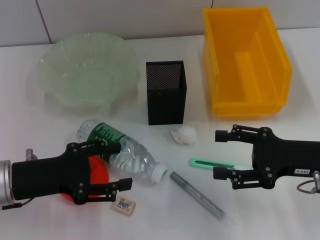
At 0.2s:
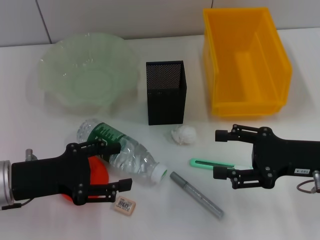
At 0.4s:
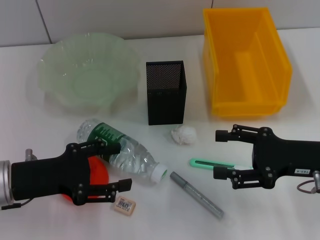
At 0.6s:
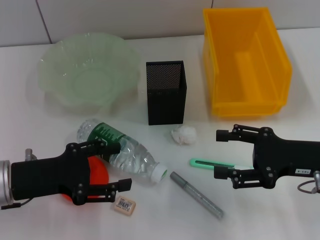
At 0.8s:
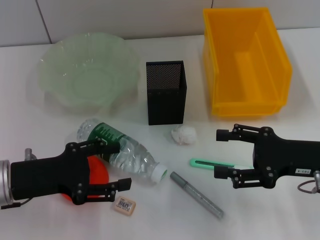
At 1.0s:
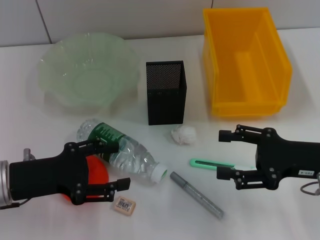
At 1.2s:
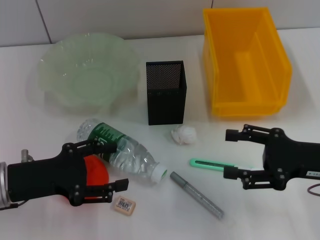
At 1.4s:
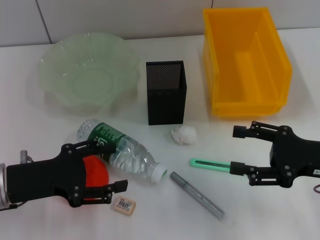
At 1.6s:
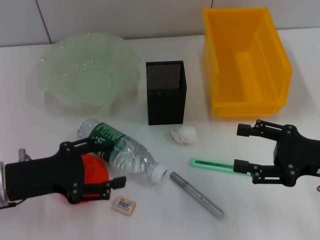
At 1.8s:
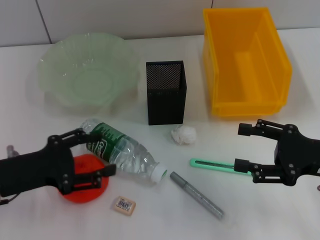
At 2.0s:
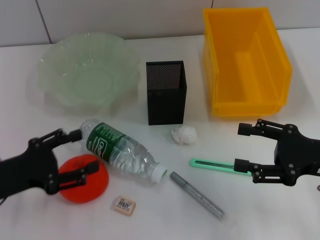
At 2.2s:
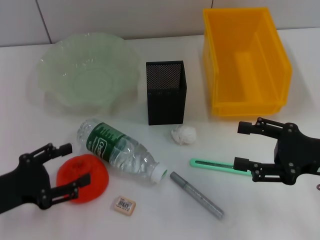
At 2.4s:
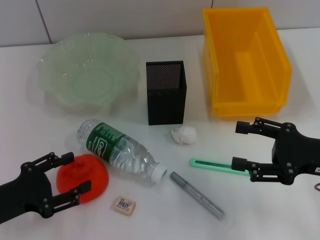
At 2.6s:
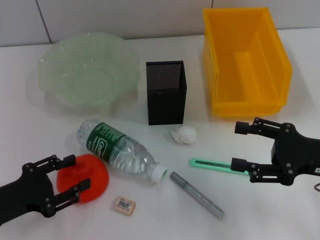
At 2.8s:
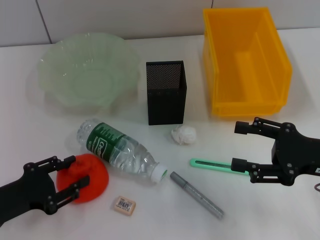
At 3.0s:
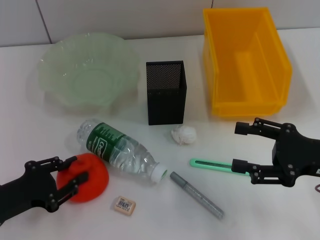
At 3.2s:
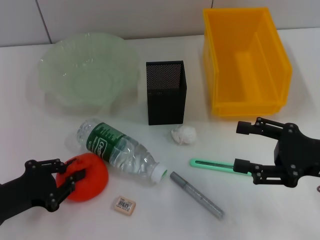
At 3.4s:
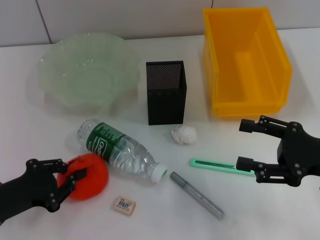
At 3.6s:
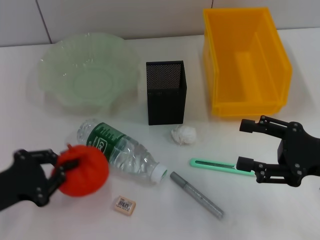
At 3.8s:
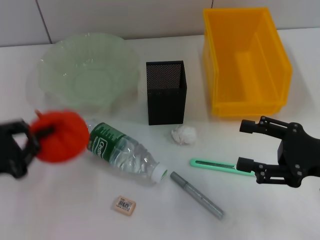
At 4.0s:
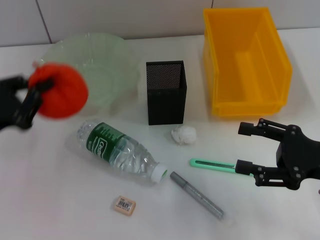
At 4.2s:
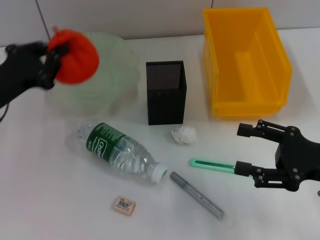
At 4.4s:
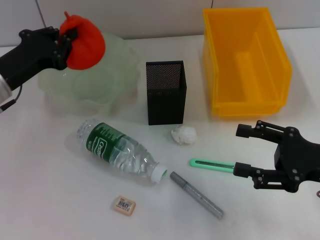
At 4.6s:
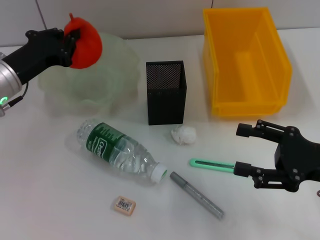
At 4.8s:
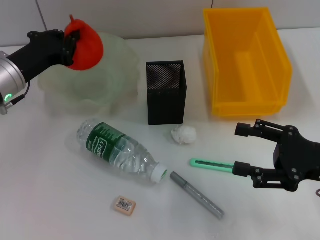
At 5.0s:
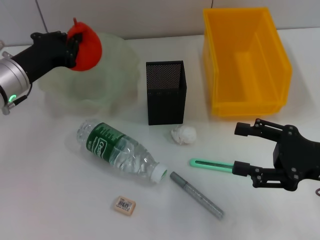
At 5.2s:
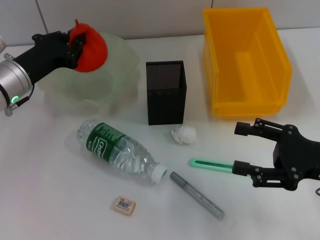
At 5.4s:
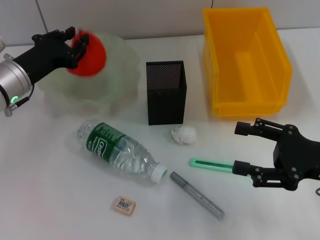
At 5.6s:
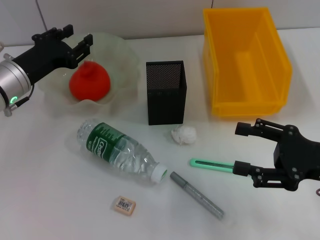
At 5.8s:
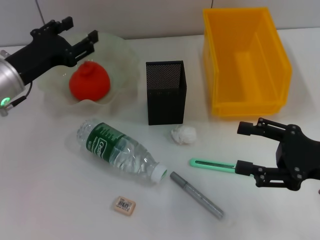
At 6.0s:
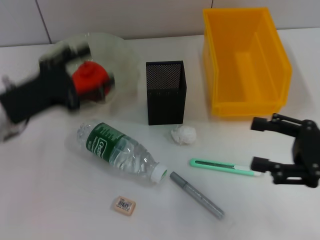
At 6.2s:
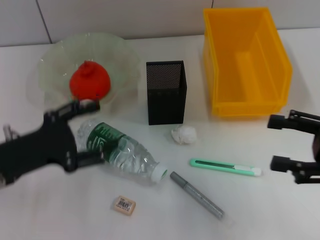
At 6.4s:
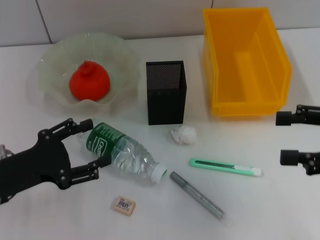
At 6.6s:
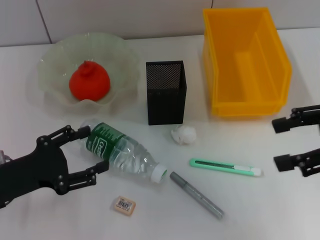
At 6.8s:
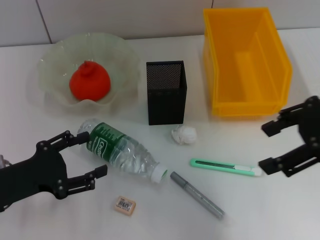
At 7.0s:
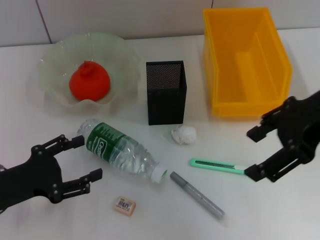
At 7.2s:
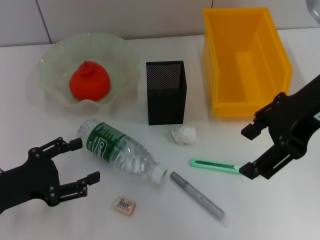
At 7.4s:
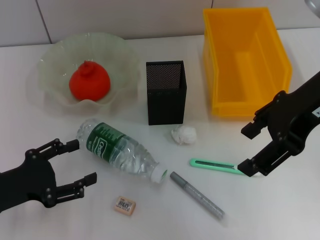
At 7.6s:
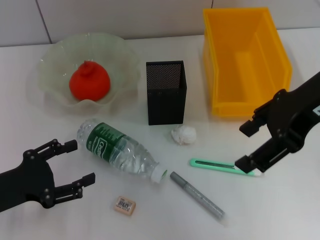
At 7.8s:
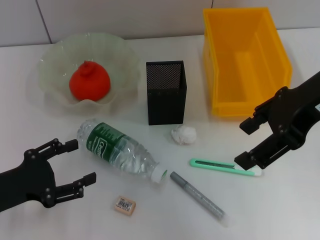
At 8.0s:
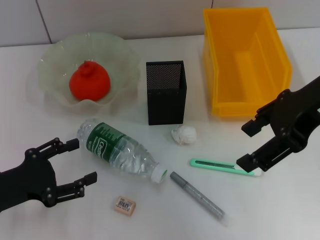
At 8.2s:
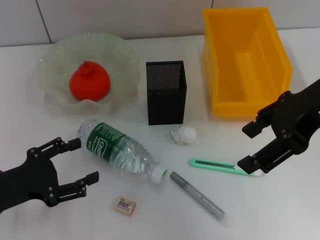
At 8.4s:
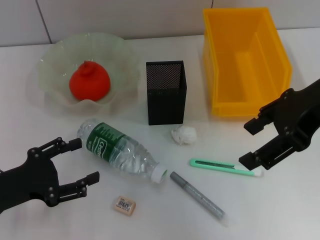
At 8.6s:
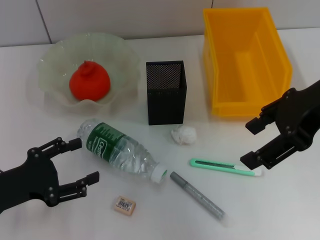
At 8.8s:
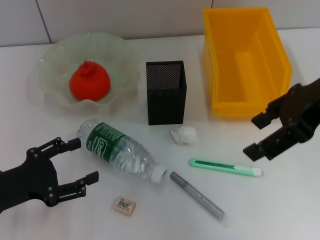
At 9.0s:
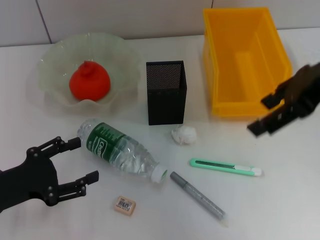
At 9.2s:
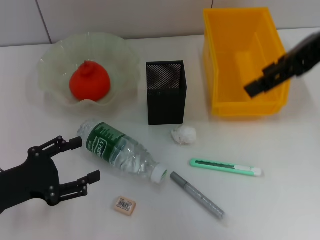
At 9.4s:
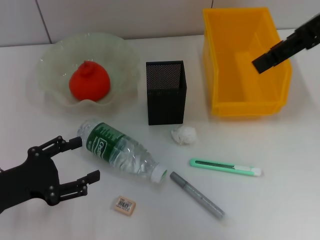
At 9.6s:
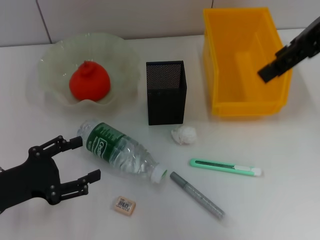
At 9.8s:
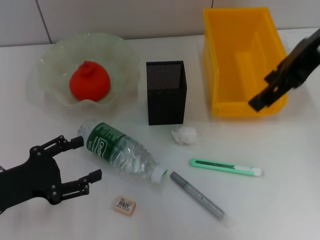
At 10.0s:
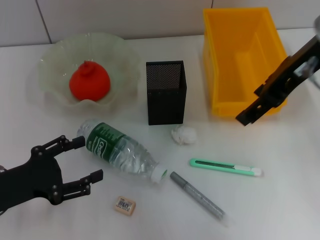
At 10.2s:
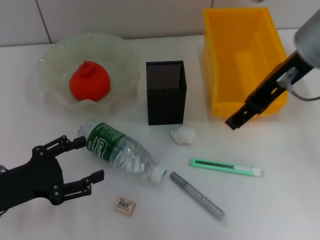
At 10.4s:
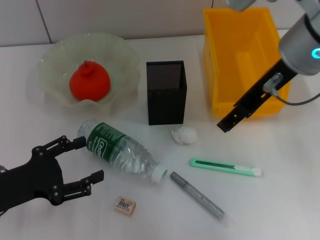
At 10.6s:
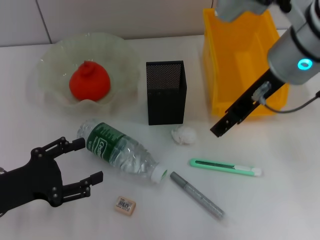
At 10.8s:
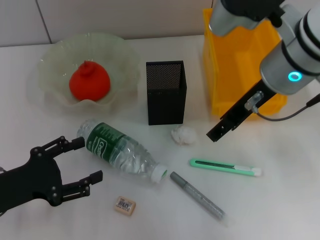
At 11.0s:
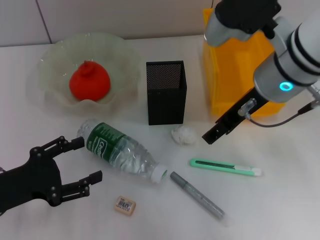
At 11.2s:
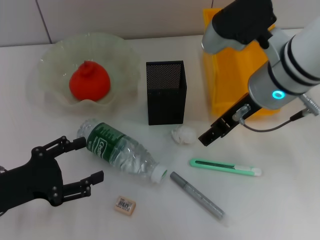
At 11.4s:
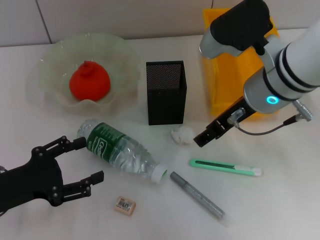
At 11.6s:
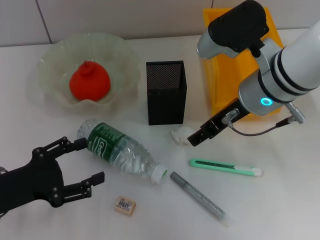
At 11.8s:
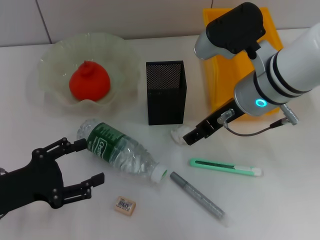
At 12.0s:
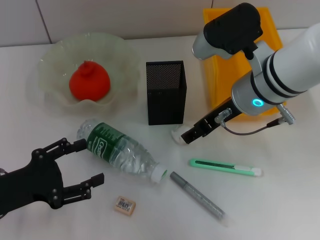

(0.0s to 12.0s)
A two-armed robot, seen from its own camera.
Step, 0.0s - 3.2s: Grab the orange with the left hand.
0.0s - 1.6s: The grippers move only a little.
1.6s - 3.0s: The left gripper ends up roughly 5 cm from where it was, and closes up.
3.0s - 4.4s: The left gripper is displaced forward and upward by roughly 15 cm, and closes.
4.4s - 6.0s: The left gripper opens.
6.0s - 7.6s: The left gripper shifts some 10 cm backward; the right gripper moves upward and to the left, some 20 cm.
7.6s - 9.0s: The grippers move only a little.
9.0s - 10.4s: The right gripper is displaced to the left by some 5 cm.
10.4s - 12.0s: The right gripper shifts approximately 10 cm downward.

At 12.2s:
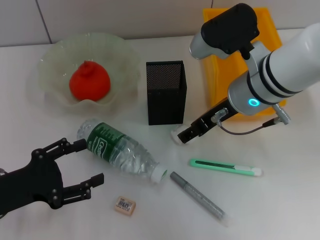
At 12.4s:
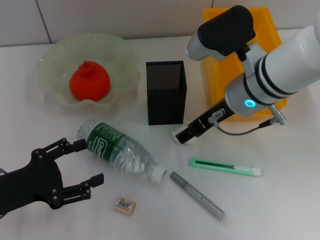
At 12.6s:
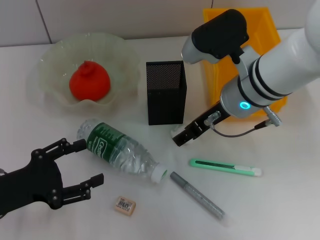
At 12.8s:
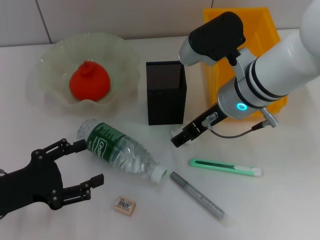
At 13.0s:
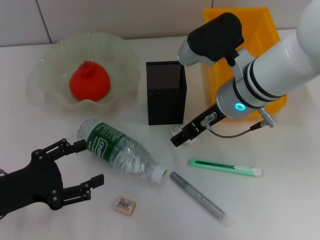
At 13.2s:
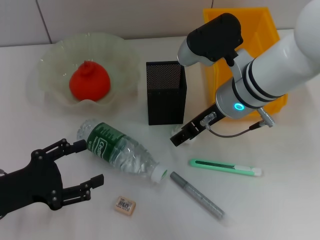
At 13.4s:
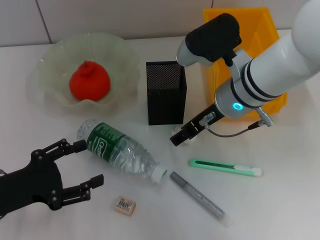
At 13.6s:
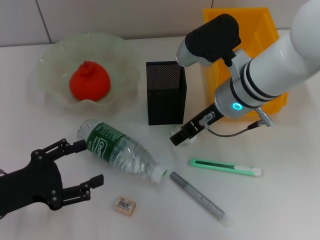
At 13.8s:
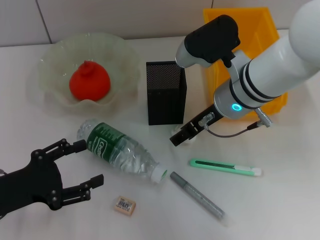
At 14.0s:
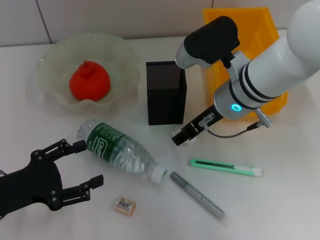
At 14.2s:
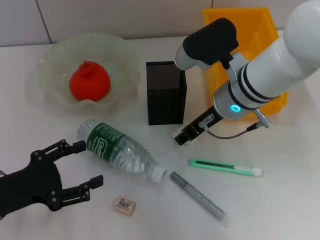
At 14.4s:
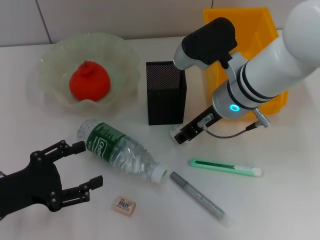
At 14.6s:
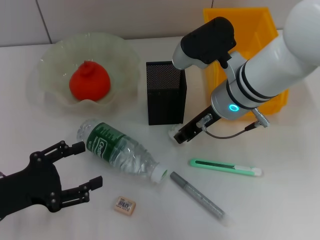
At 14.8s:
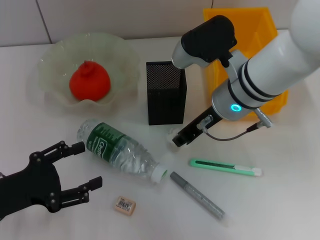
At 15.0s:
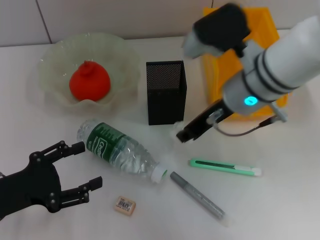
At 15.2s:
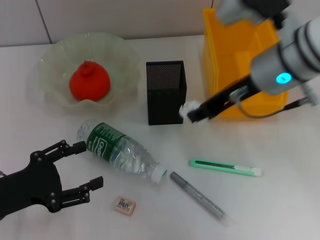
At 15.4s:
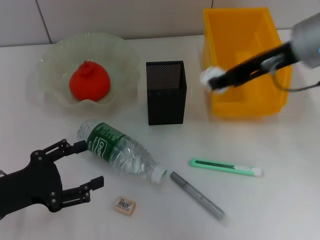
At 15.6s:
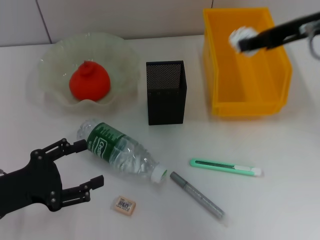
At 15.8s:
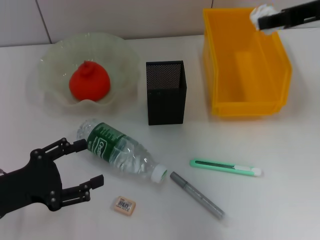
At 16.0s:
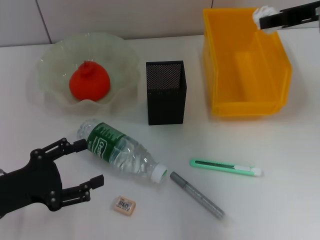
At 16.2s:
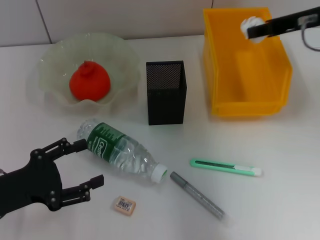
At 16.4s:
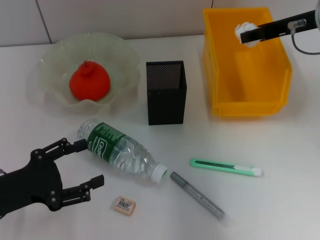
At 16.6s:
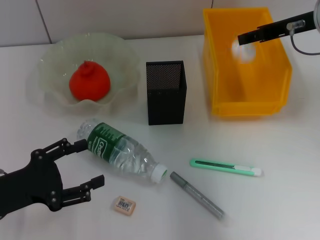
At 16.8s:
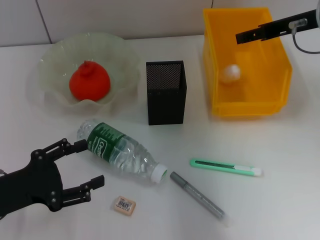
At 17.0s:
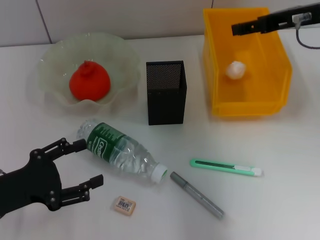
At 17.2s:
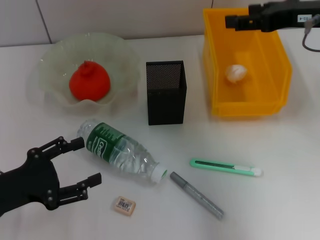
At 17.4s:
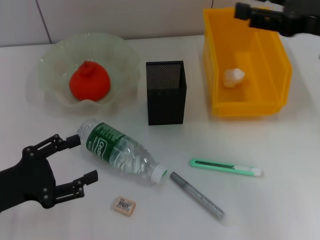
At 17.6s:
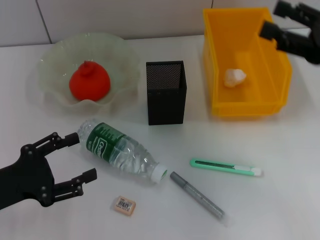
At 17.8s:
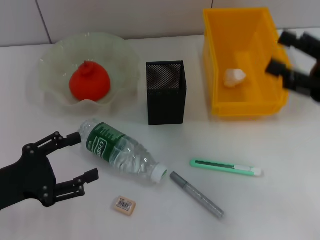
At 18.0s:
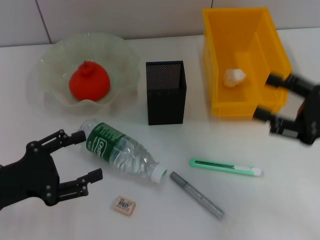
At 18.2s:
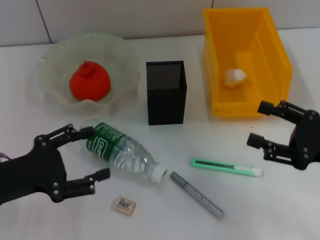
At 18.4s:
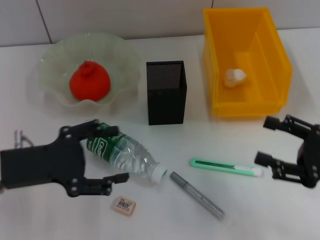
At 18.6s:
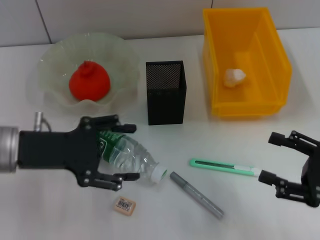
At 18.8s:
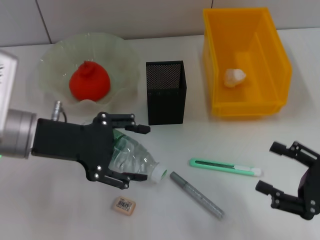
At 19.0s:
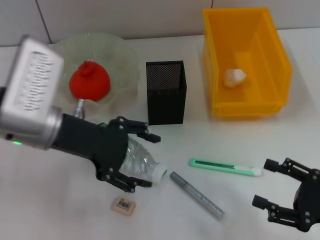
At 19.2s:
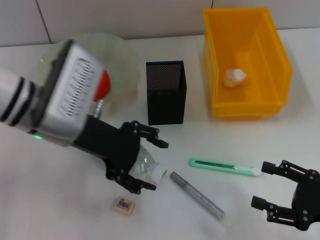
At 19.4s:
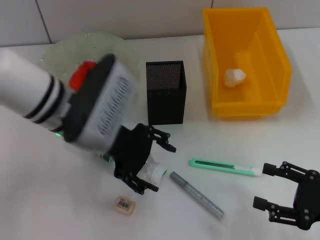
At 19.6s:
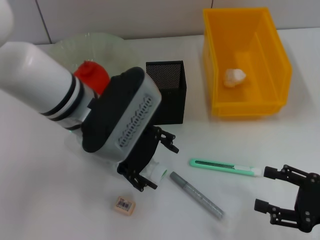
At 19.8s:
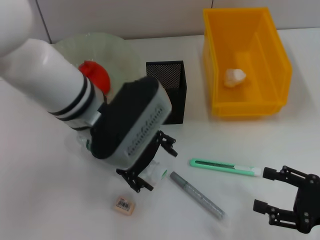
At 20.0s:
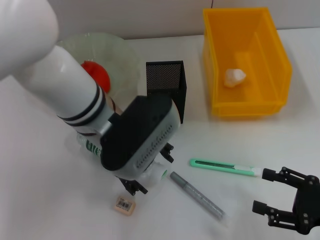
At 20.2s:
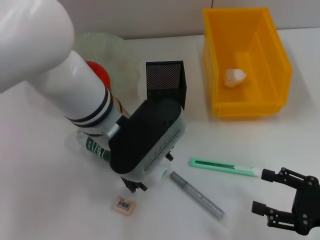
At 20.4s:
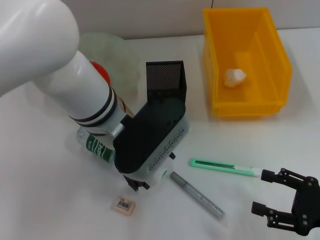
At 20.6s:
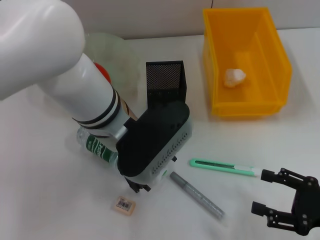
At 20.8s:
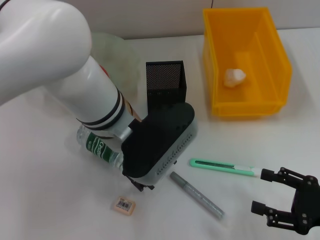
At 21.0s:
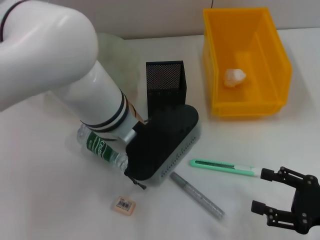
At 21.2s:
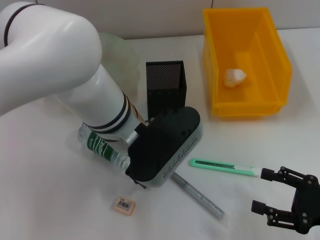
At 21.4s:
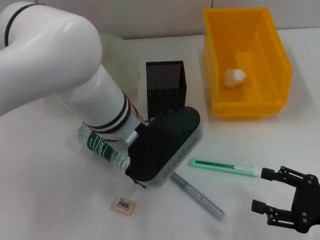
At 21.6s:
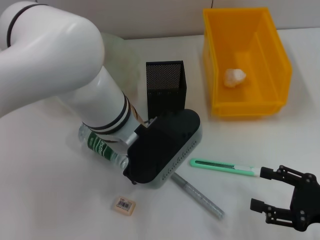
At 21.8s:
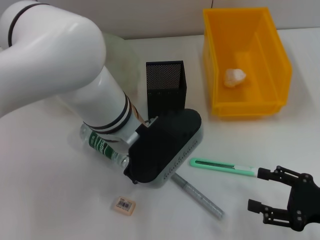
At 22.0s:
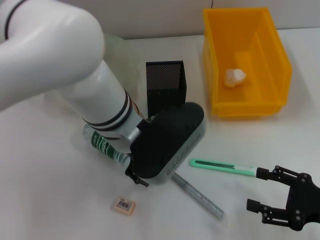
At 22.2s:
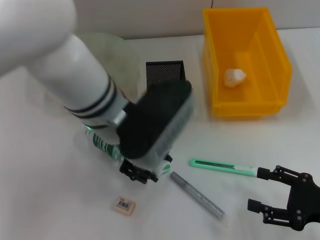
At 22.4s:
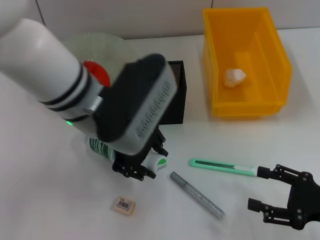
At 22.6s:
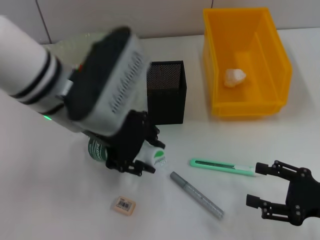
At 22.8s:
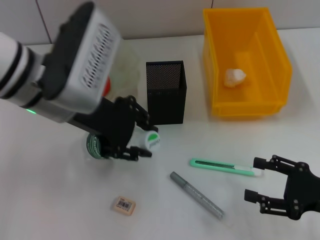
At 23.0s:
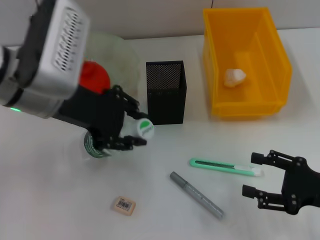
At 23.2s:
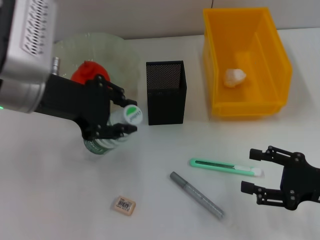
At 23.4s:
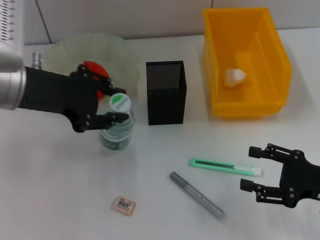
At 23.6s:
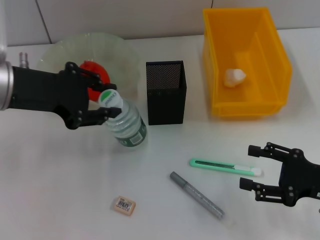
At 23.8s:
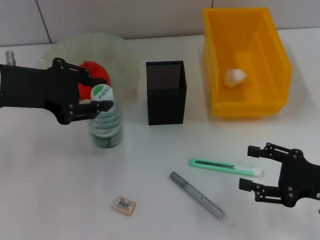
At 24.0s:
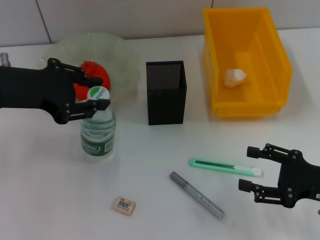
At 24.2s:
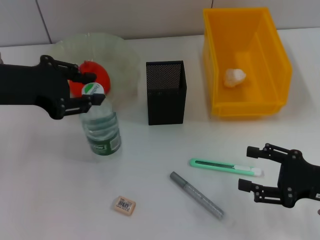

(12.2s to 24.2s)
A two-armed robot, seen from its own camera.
Step, 12.2s - 14.4s: Grab the paper ball with the right hand.
Step, 14.6s - 17.0s: Place the paper ball into the trash can with the right hand.
Step, 17.2s - 21.8s: Grab the water bottle with the left hand.
12.2s - 13.8s: The grippers move only a little.
13.8s - 15.2s: The right gripper is displaced upward by roughly 5 cm, and closes up.
15.2s - 16.6s: The right gripper heads to the right and forward, covering some 10 cm.
16.6s - 18.2s: The right gripper is displaced backward and downward by approximately 20 cm, and opens up.
18.2s - 19.8s: The left gripper is displaced to the right, forward and upward by roughly 20 cm, while the right gripper is displaced backward and downward by about 10 cm.
21.2s - 22.6s: The left gripper moves to the left and upward, approximately 10 cm.
22.6s - 24.2s: The left gripper goes about 15 cm to the left.
